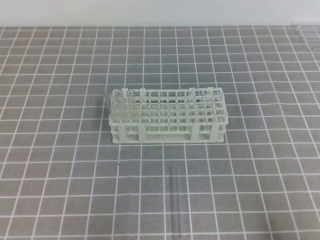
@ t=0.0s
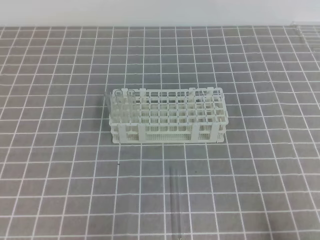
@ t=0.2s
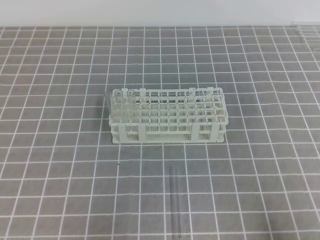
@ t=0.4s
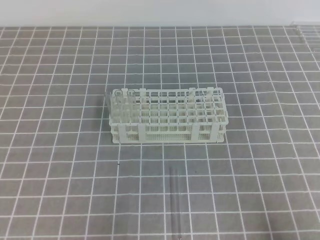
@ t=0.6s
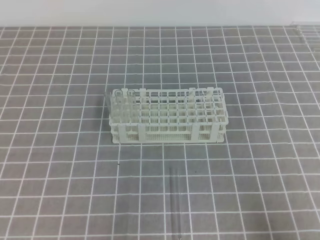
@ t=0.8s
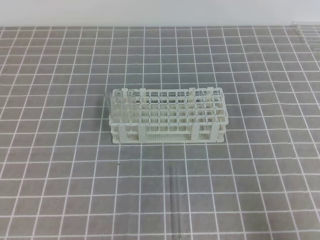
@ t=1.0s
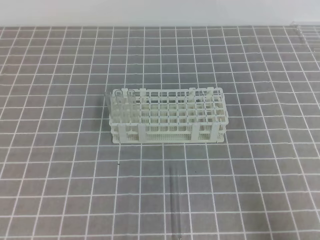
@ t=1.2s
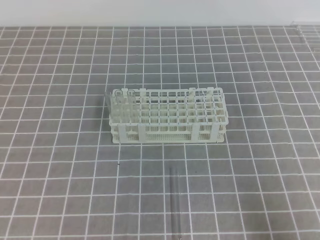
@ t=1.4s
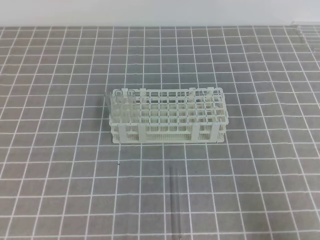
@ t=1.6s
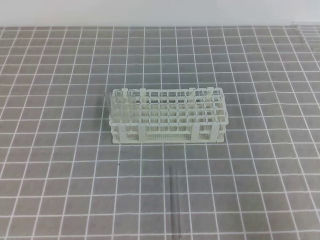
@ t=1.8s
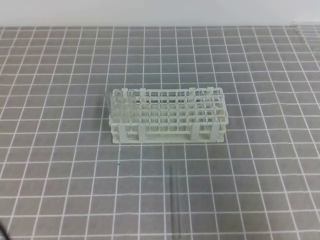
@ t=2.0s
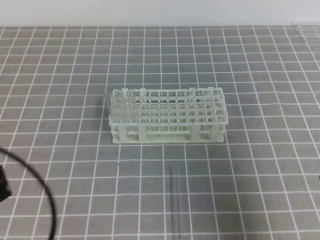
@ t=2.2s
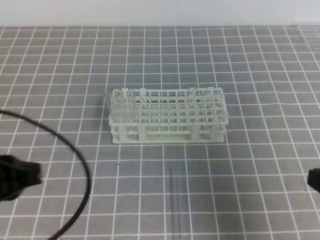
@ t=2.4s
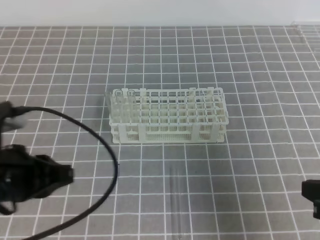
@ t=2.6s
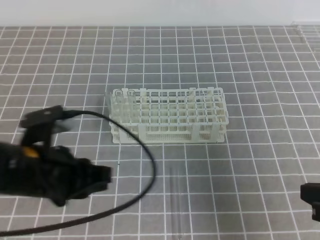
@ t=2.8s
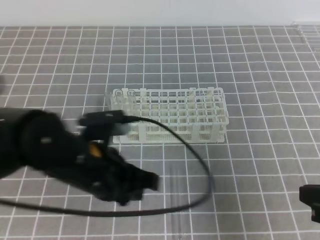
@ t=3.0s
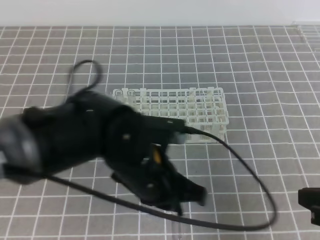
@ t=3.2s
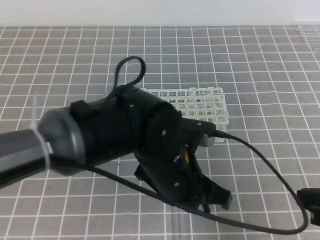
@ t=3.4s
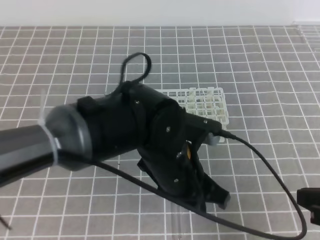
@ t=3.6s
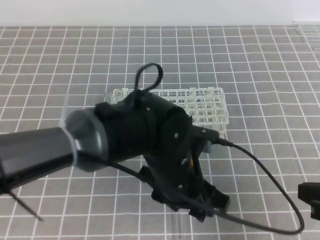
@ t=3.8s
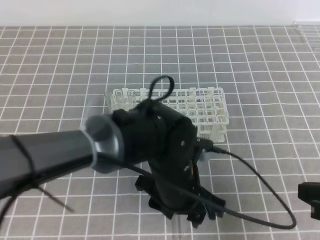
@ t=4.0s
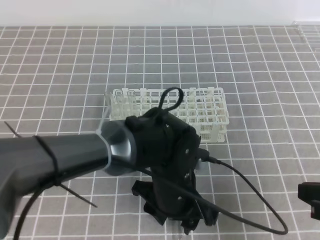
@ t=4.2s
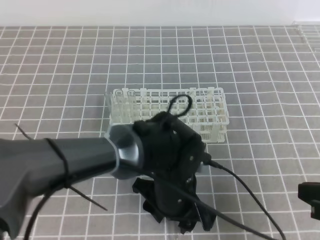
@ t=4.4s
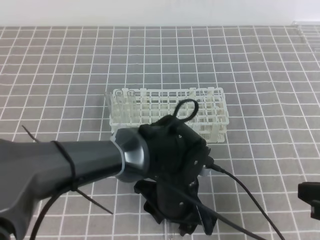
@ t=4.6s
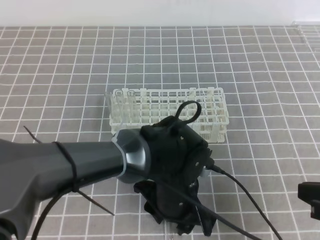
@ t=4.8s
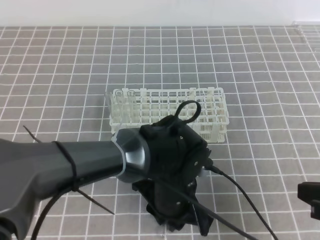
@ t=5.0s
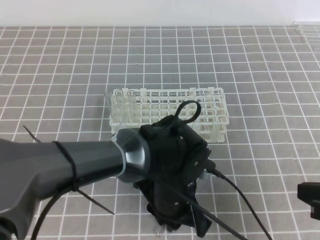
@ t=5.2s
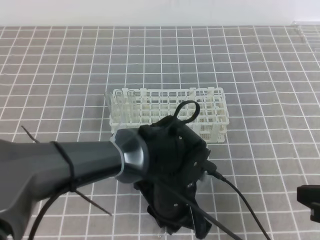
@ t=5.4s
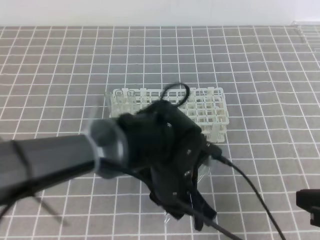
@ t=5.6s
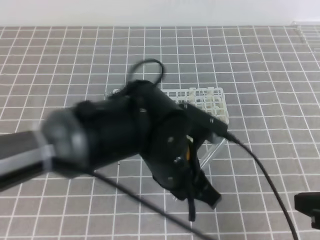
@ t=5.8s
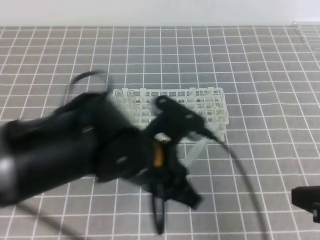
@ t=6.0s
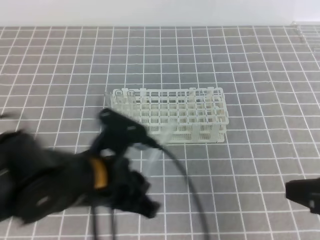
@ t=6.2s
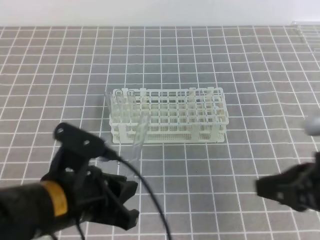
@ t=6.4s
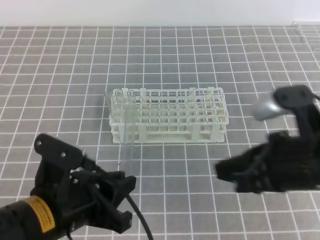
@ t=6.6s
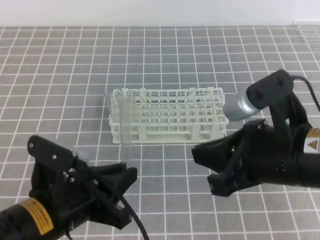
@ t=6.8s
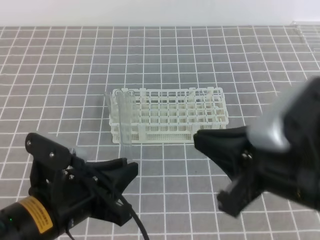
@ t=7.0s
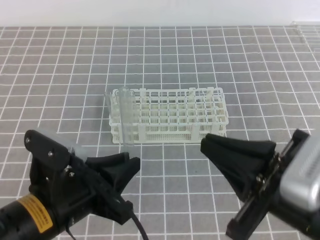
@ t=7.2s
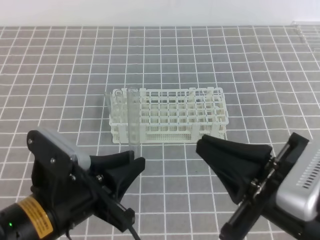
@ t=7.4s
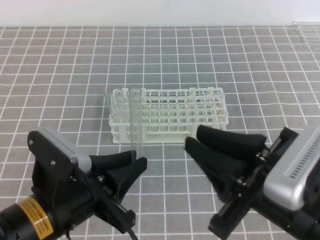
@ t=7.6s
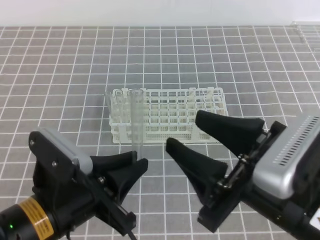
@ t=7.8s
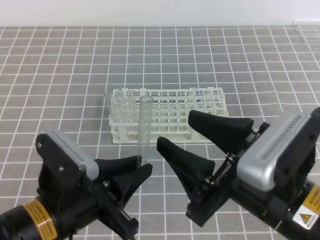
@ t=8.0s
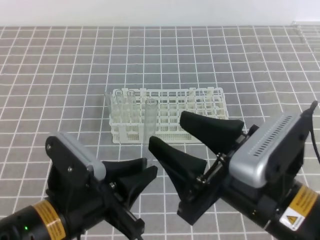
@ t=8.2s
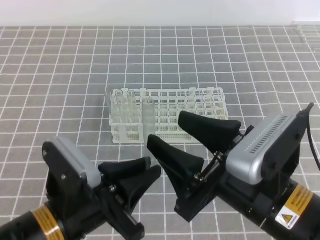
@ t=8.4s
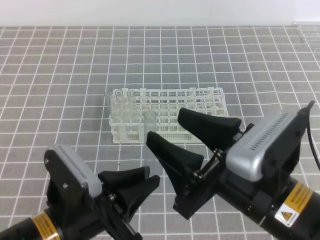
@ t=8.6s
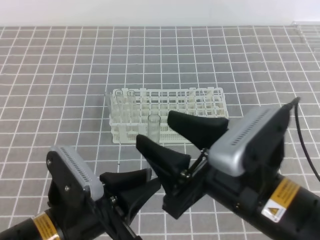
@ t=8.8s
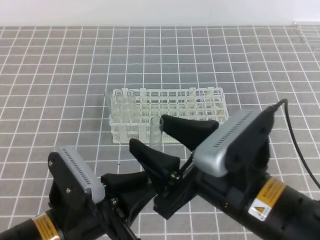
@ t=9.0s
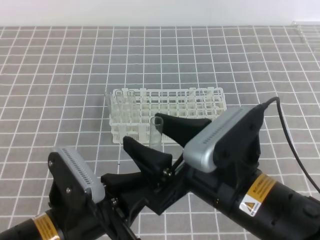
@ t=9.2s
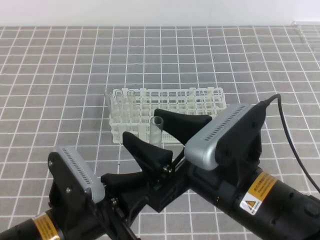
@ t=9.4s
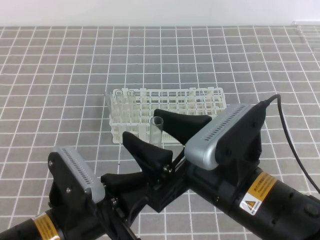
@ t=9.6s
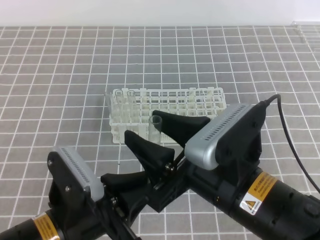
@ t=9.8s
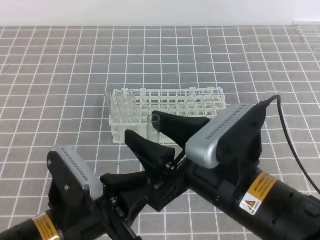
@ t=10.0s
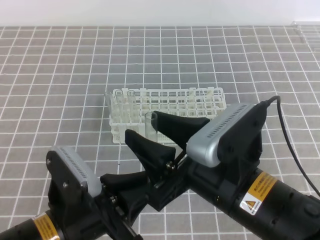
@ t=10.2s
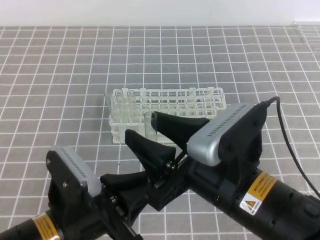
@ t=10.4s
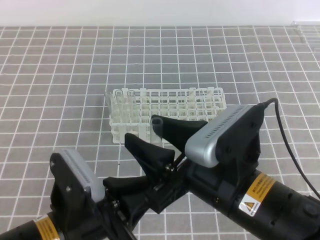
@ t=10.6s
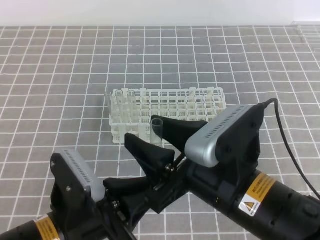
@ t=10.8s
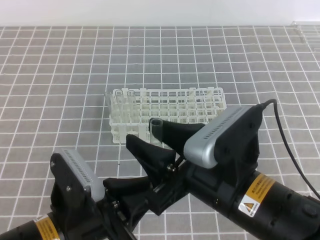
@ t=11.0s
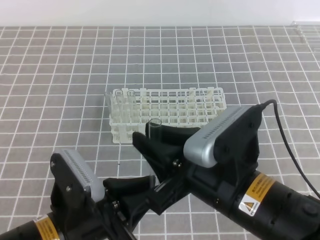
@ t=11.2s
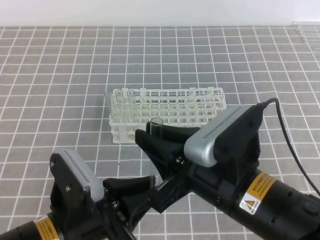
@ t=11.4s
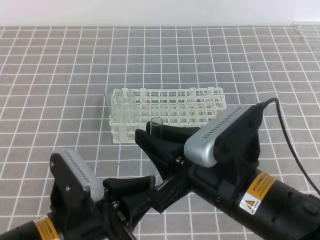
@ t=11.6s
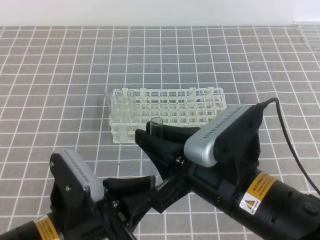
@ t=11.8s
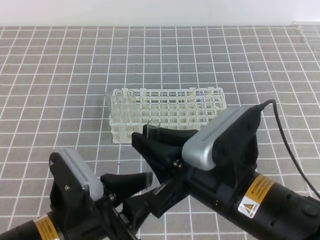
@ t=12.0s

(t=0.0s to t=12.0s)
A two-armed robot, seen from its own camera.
t=1.6s - t=3.0s: The left gripper is displaced to the right and forward by roughly 20 cm. The right gripper goes roughly 5 cm forward.
t=3.0s - t=4.4s: The left gripper goes roughly 15 cm to the right and downward, and opens up.
t=4.4s - t=6.0s: The left gripper is displaced upward by approximately 10 cm, and closes up.
t=6.0s - t=7.6s: The right gripper moves to the left, about 10 cm, and opens up; the left gripper is displaced to the left and backward by roughly 10 cm.
t=7.6s - t=9.0s: The right gripper heads to the left, covering about 5 cm, and opens its fingers.
t=9.0s - t=10.4s: There are only small adjustments of the grippers.
t=10.4s - t=12.0s: The right gripper closes up, while the left gripper opens.

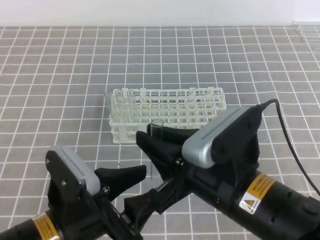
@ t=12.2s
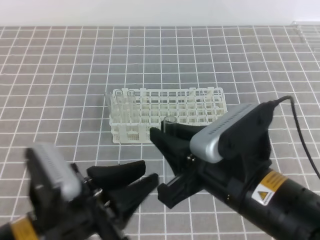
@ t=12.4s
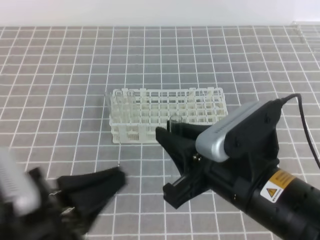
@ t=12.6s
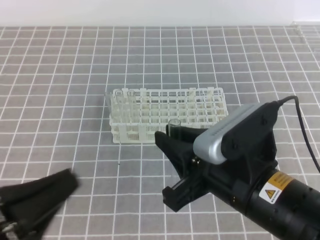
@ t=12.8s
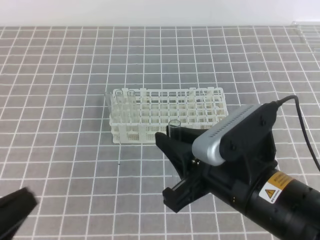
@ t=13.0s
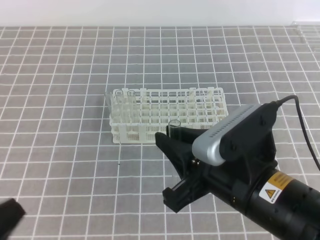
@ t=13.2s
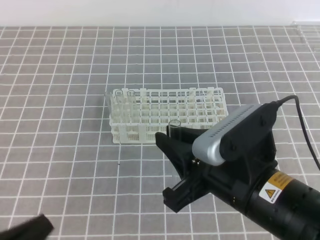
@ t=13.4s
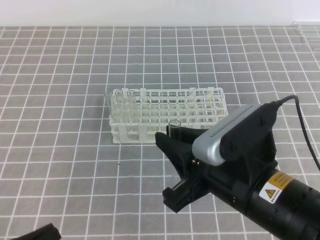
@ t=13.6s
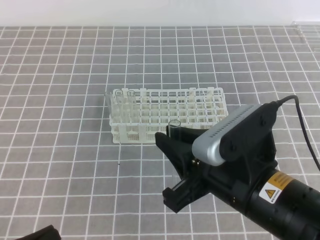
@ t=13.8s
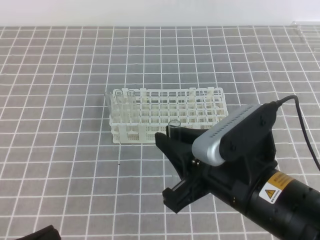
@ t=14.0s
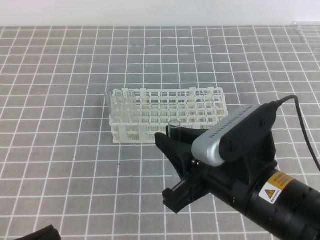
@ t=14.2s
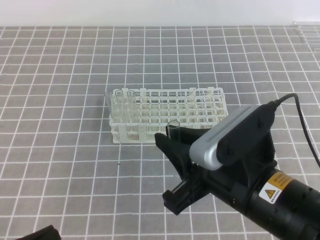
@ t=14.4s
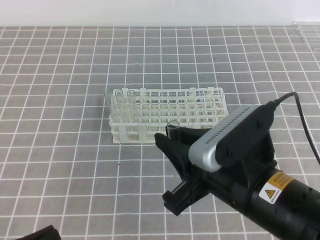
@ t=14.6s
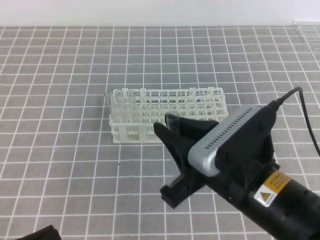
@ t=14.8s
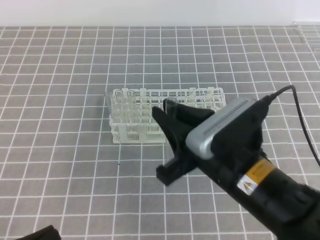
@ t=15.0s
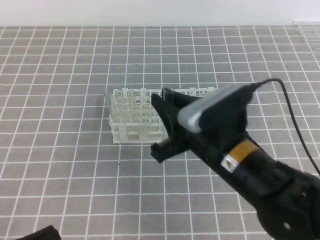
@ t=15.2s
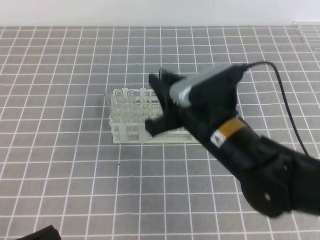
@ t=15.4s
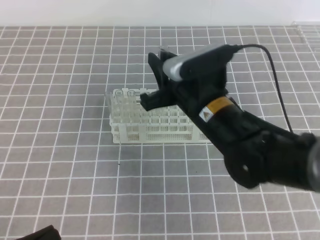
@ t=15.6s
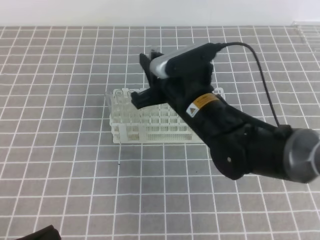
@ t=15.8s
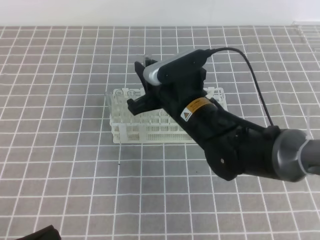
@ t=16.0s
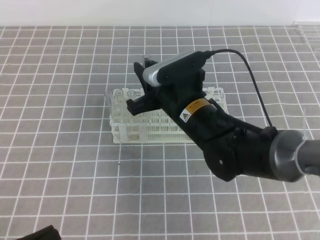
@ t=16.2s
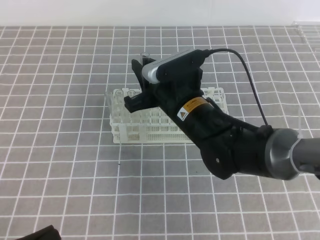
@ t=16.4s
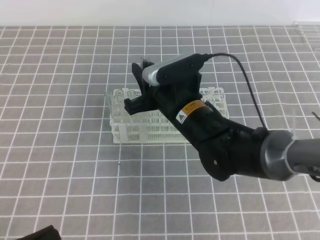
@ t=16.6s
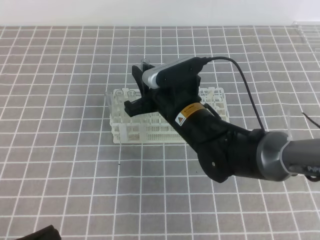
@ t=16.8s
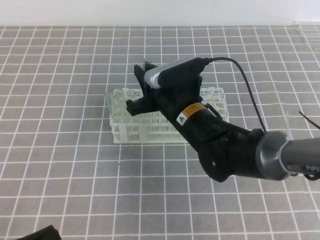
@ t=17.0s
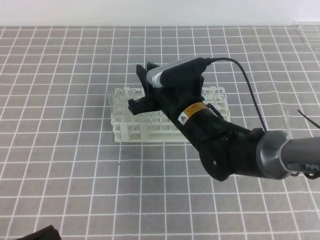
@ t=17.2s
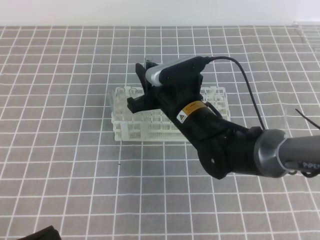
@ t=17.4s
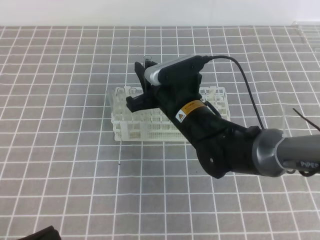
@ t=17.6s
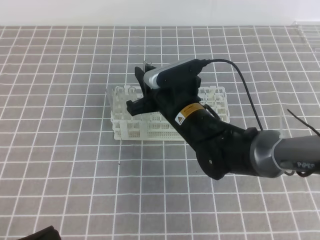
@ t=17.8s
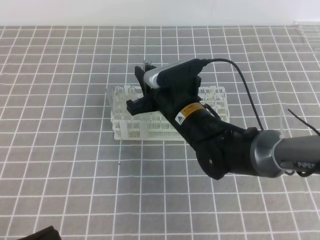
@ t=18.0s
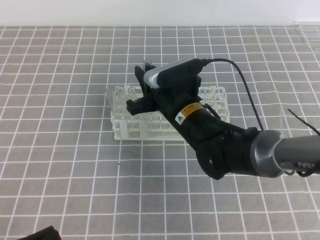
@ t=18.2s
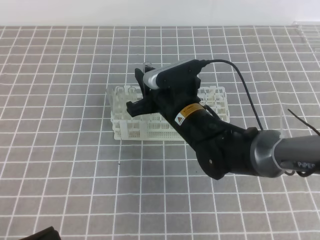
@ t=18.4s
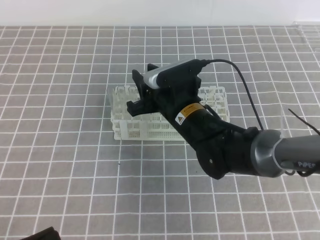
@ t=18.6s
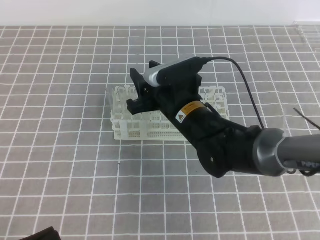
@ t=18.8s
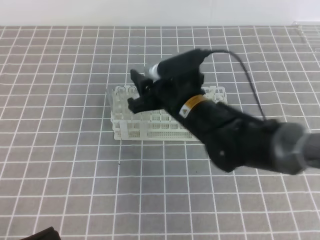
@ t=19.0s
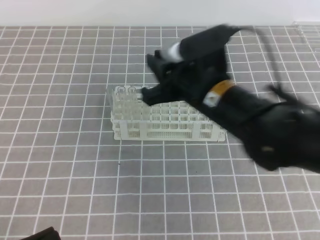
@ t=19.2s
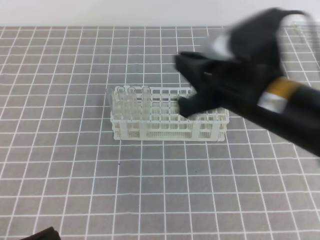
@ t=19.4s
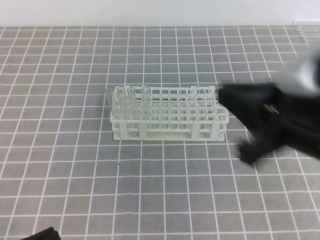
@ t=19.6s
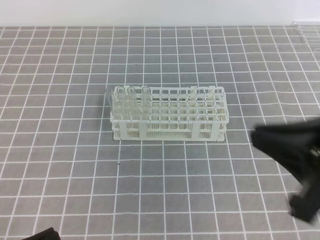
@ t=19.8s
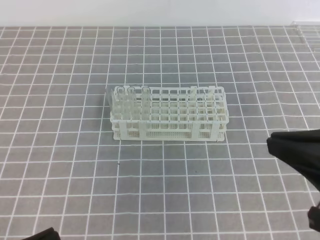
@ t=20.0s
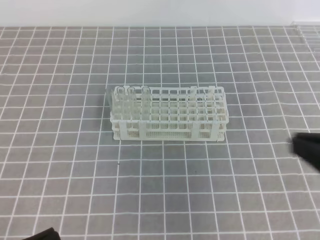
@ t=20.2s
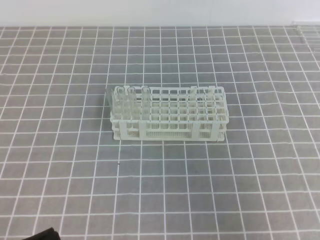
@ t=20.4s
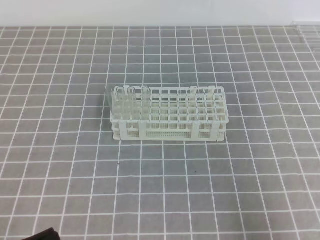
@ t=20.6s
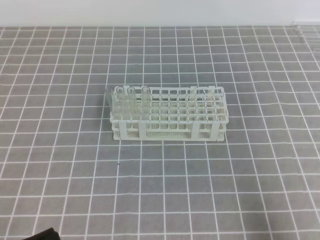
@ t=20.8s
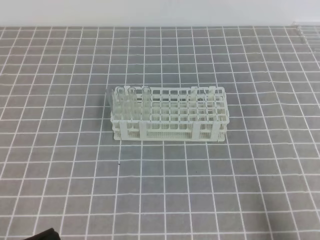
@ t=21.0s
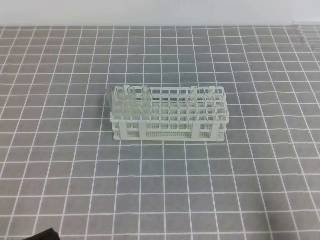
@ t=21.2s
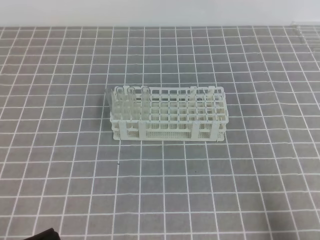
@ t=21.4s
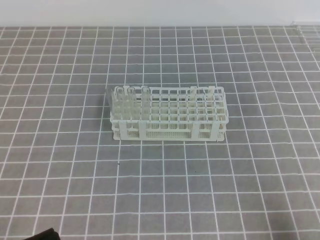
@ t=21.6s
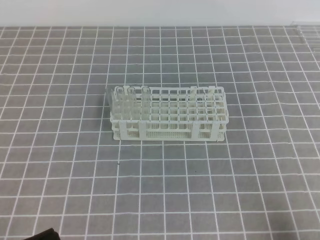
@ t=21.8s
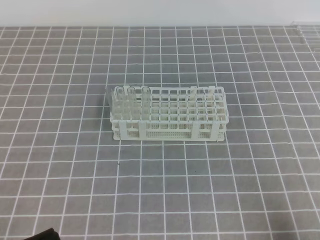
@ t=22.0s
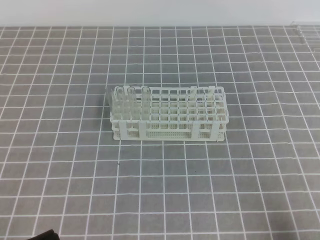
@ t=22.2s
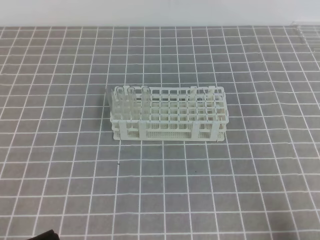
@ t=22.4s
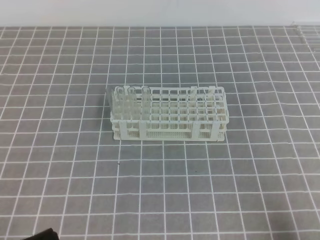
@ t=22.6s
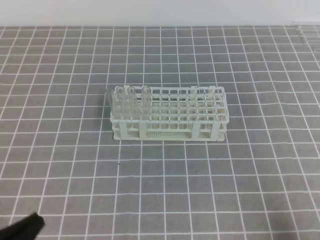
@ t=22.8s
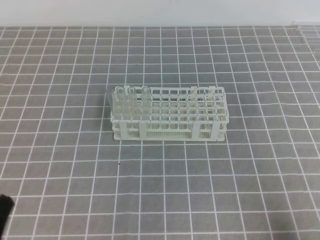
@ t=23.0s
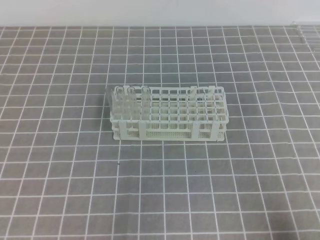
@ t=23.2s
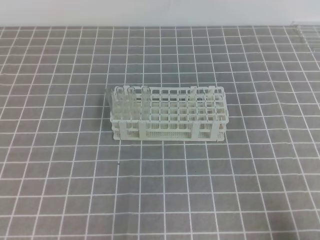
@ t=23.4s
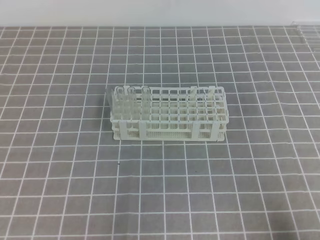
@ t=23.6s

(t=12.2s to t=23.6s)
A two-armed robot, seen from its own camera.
t=12.2s - t=13.6s: The left gripper goes roughly 15 cm to the left and backward, and closes its fingers.
t=13.6s - t=15.0s: The grippers move only a little.
t=15.0s - t=16.4s: The right gripper moves forward, roughly 15 cm.
t=16.4s - t=17.8s: The grippers stay close to where they were, moving slightly.
t=17.8s - t=19.4s: The right gripper heads upward, backward and to the right, covering roughly 20 cm, and opens, then closes once more.
t=19.4s - t=20.8s: The right gripper is displaced to the right, backward and downward by about 30 cm.
t=20.8s - t=22.2s: The right gripper travels downward by approximately 5 cm.
